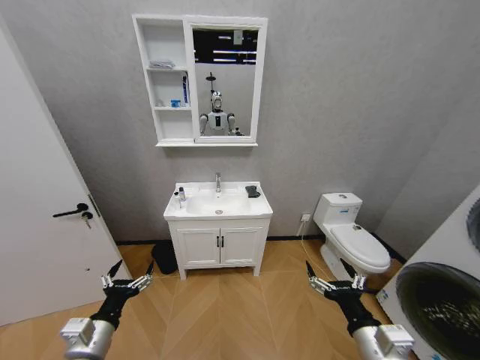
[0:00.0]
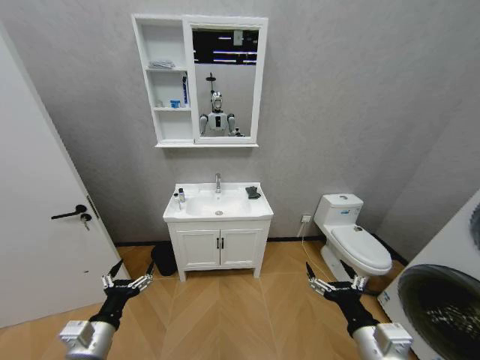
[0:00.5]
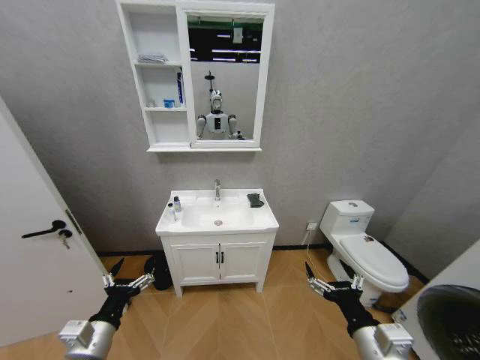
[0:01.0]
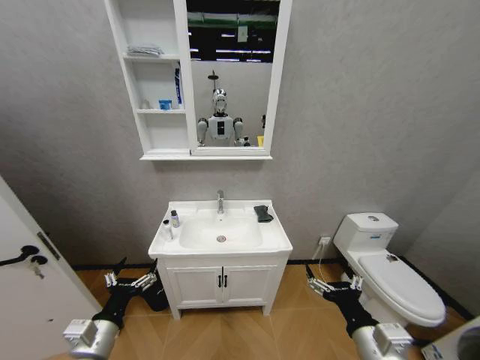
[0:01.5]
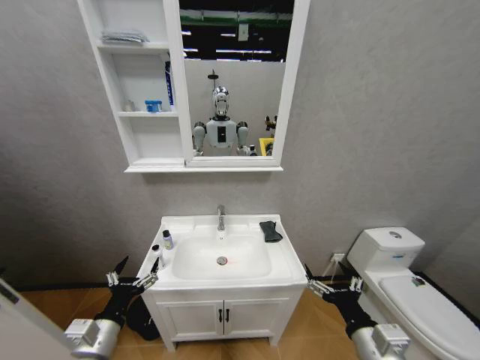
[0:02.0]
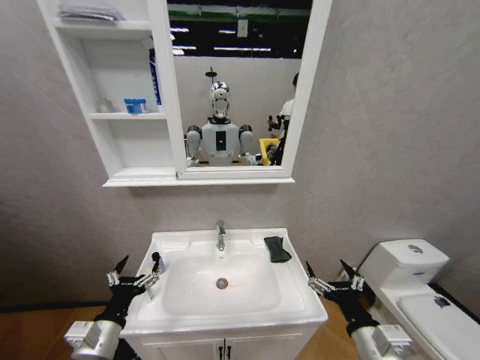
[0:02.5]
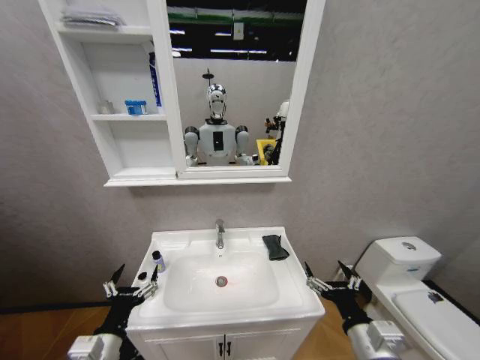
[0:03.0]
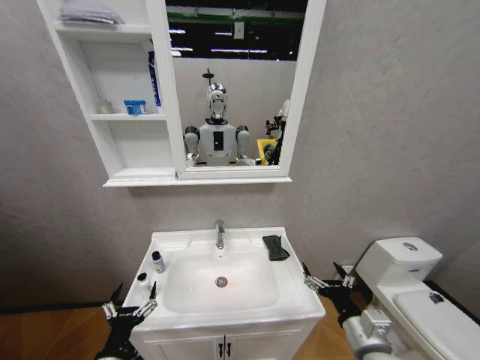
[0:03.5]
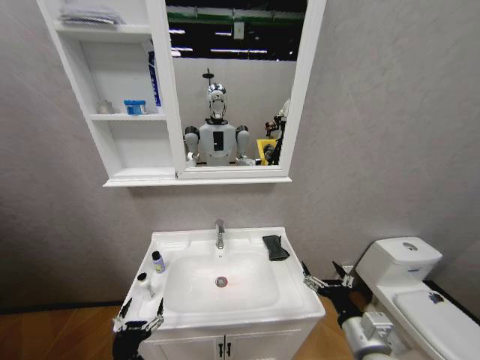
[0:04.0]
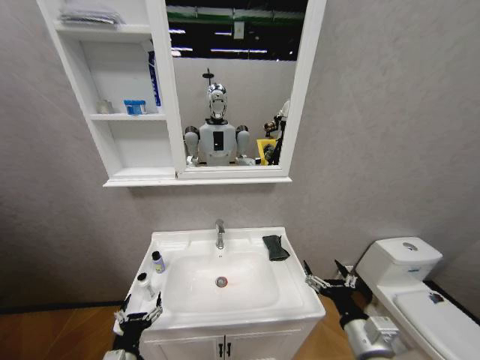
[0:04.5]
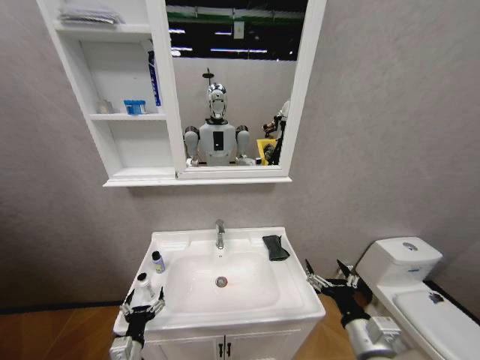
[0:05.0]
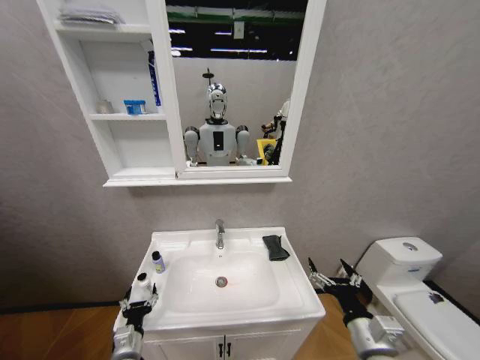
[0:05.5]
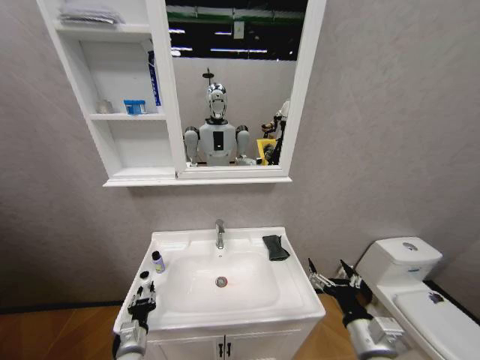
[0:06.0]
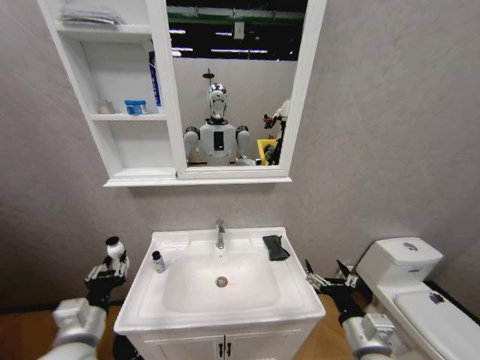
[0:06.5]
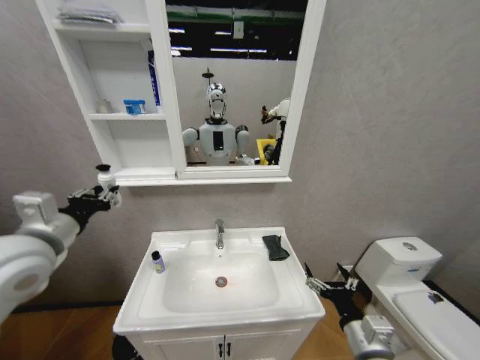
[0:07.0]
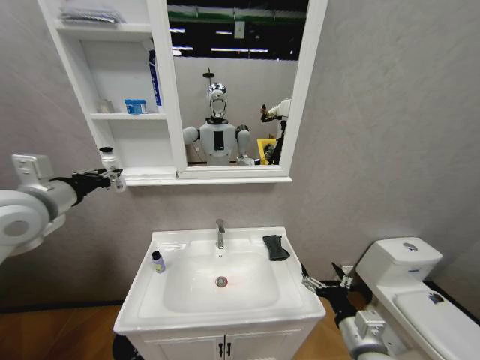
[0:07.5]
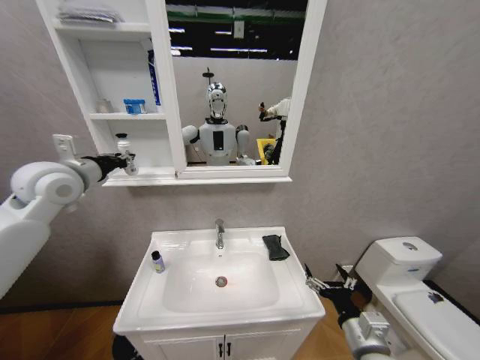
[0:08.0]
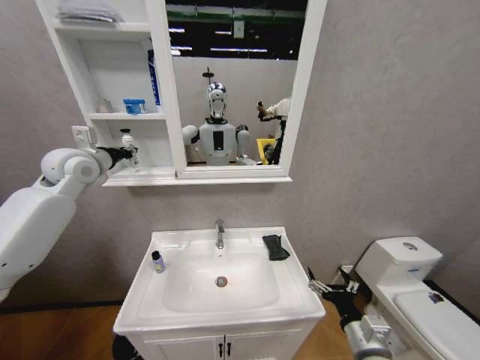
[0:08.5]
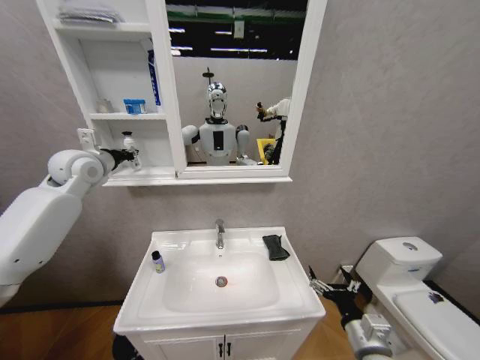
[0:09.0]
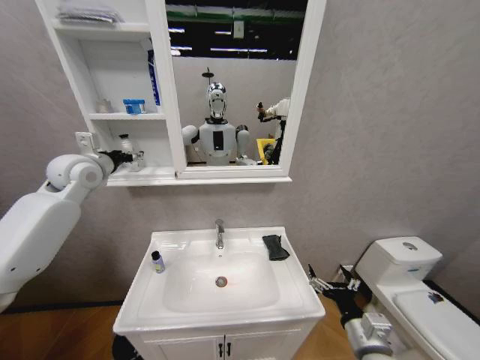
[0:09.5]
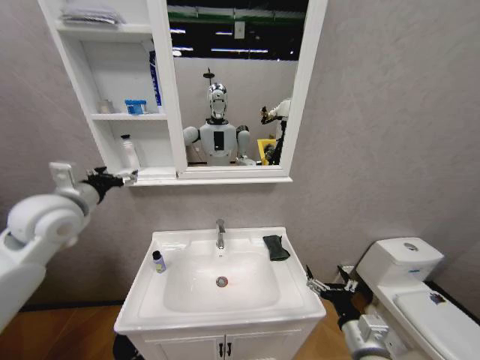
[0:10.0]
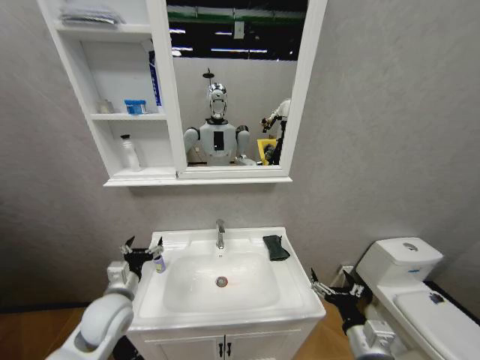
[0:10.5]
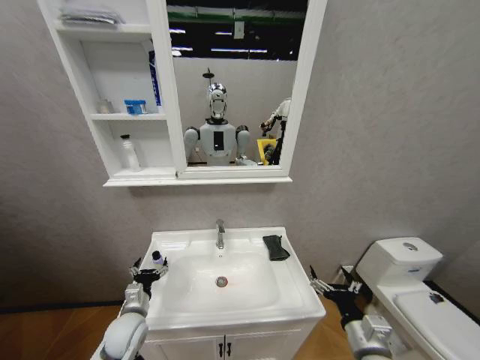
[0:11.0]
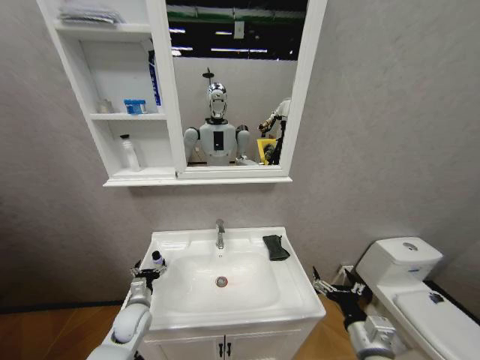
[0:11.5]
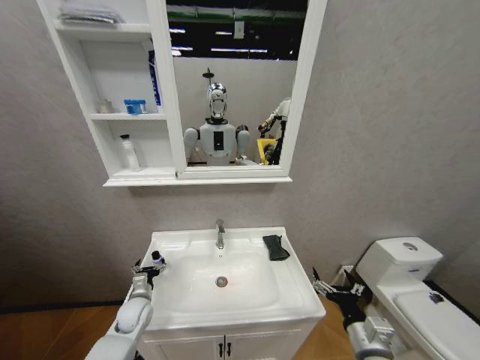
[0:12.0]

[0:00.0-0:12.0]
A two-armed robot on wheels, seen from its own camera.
Task of the whole recording: Move facial cleanser and shampoo from washbasin to cabinet, then wipe washbasin with towel.
0:02.0 to 0:04.0: The left gripper moves downward and backward, about 10 cm.
0:04.0 to 0:06.0: The left gripper is displaced forward and downward by roughly 15 cm, and closes.
0:06.0 to 0:08.0: The left gripper travels upward by approximately 50 cm.
0:08.0 to 0:10.0: The left gripper moves some 10 cm forward and comes back, and opens.
0:10.0 to 0:12.0: The left gripper shifts approximately 40 cm downward.

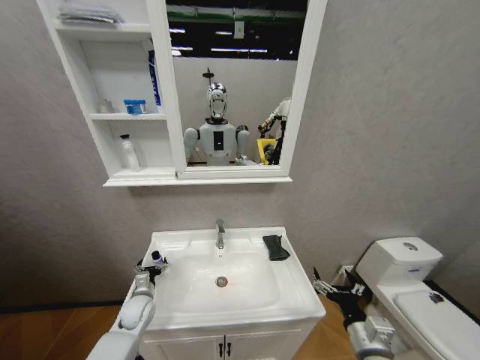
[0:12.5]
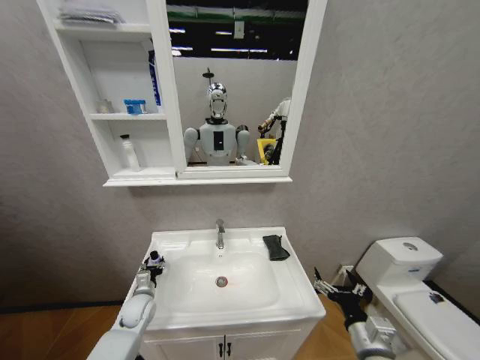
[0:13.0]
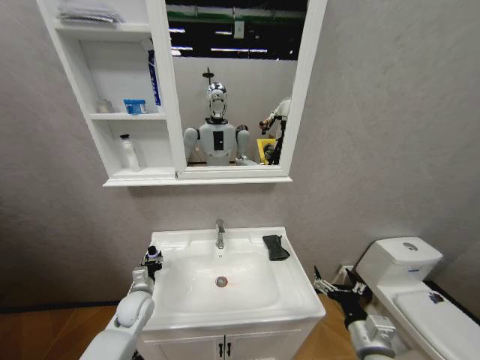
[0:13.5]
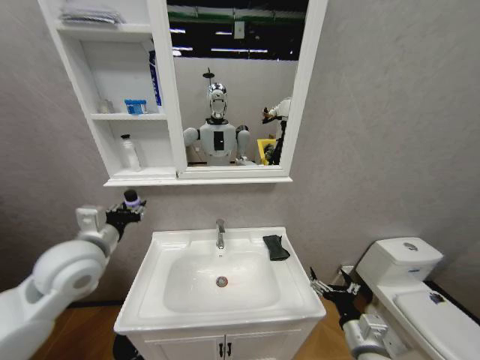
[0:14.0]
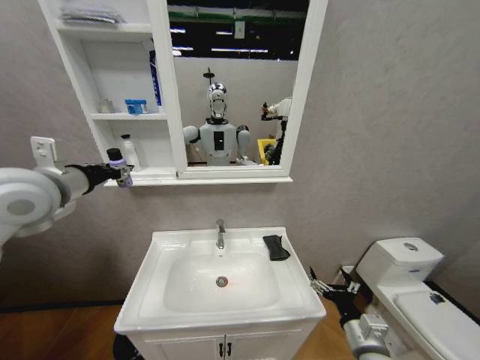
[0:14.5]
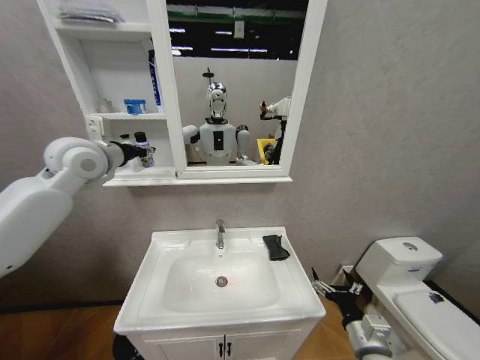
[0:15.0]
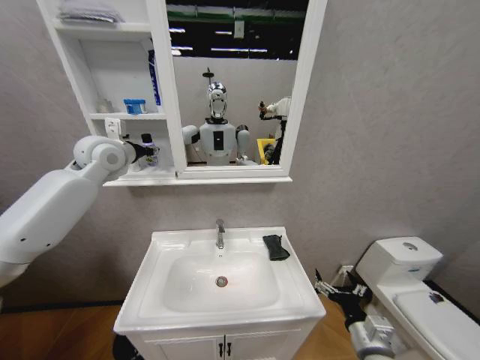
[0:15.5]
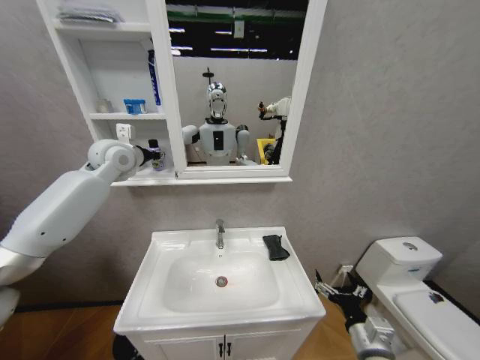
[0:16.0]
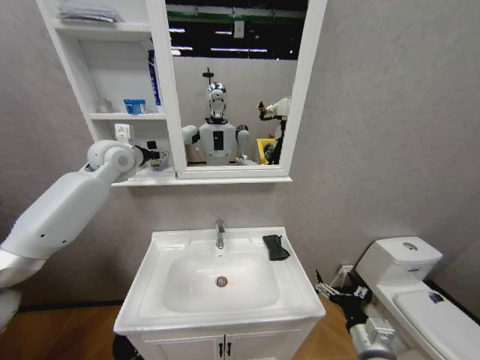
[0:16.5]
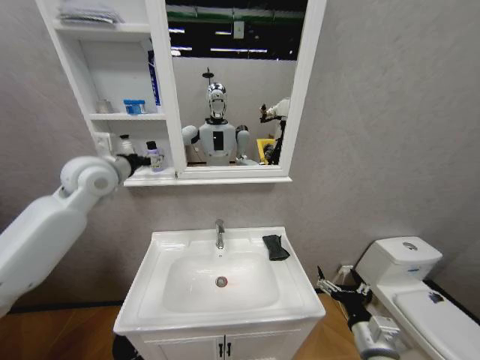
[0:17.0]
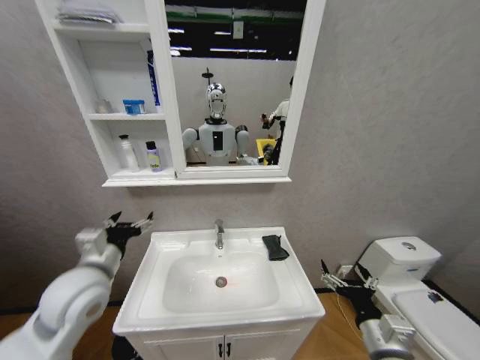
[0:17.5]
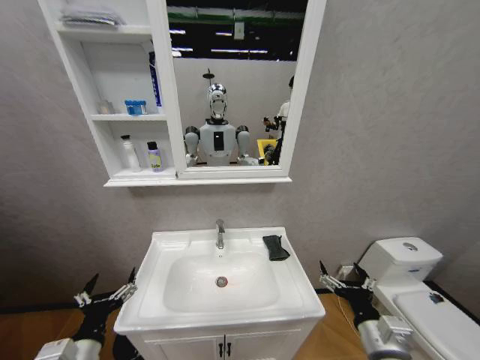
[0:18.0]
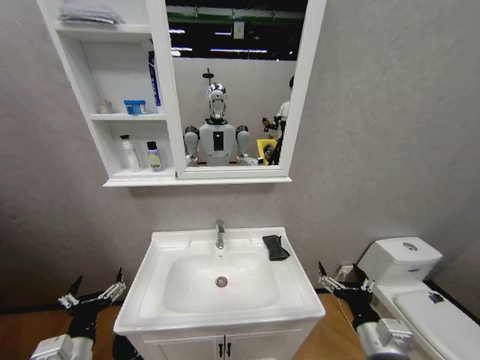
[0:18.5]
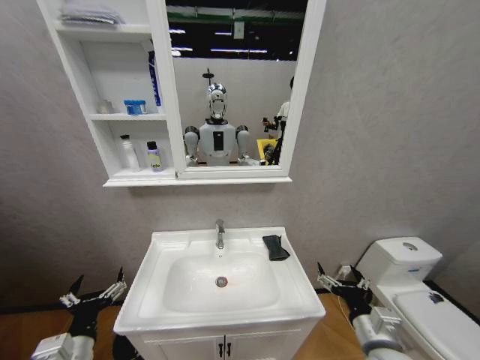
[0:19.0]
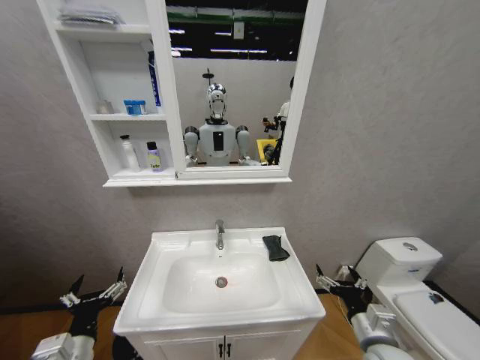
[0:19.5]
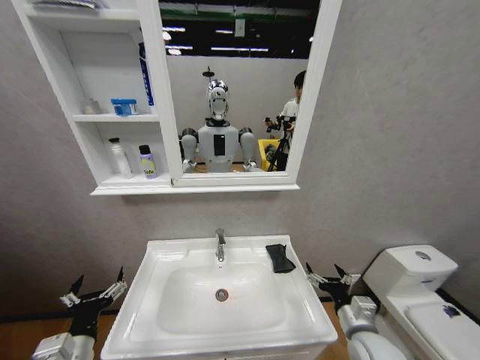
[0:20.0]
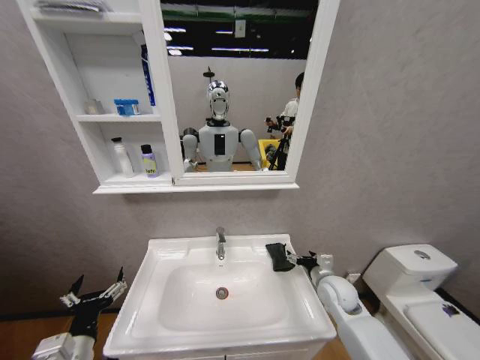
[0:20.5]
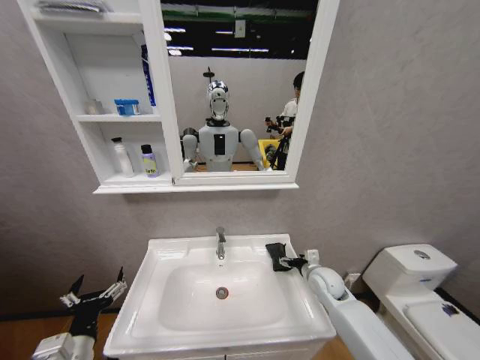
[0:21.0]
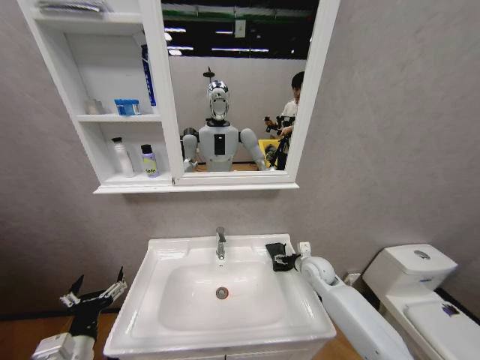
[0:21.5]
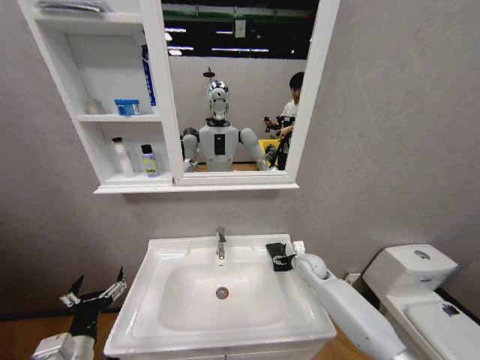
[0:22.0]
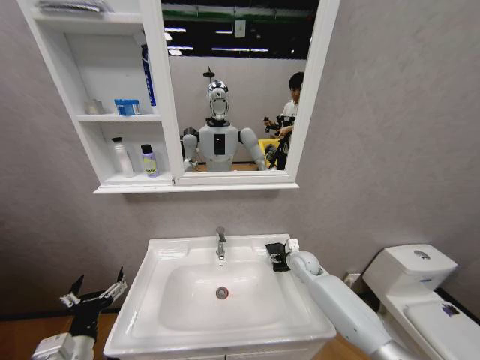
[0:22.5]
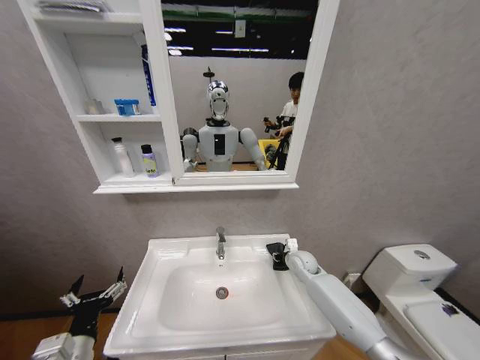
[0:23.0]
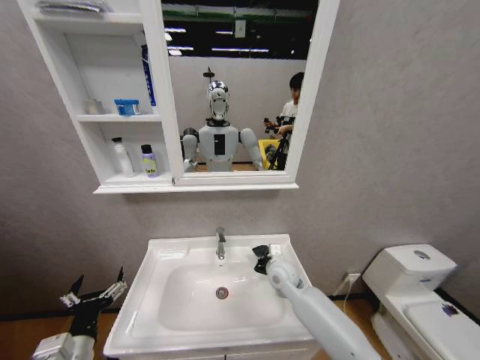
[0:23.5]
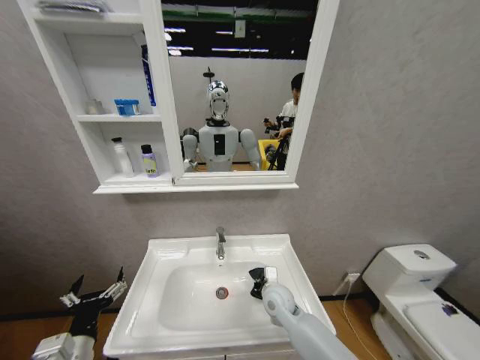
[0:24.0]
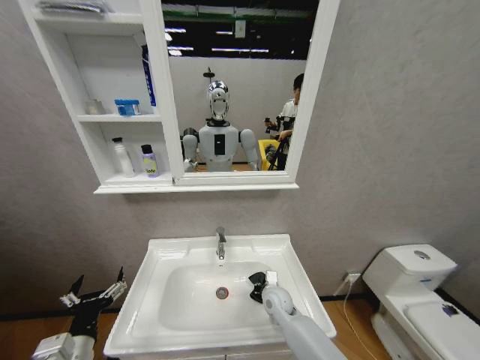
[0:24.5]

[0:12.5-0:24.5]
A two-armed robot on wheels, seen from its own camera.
Task of the whole recording: Move facial cleanser and shampoo from washbasin to cabinet, then wipe washbasin with towel.
0:12.5 to 0:14.5: The left gripper shifts approximately 50 cm upward, and closes its fingers.
0:14.5 to 0:16.5: The left gripper goes roughly 20 cm forward, and opens up.
0:16.5 to 0:18.5: The left gripper moves backward and downward, roughly 50 cm.
0:18.5 to 0:20.5: The right gripper travels forward by some 20 cm.
0:20.5 to 0:22.5: The right gripper shifts some 10 cm forward.
0:22.5 to 0:24.5: The right gripper moves to the left, backward and downward, some 15 cm, and closes.

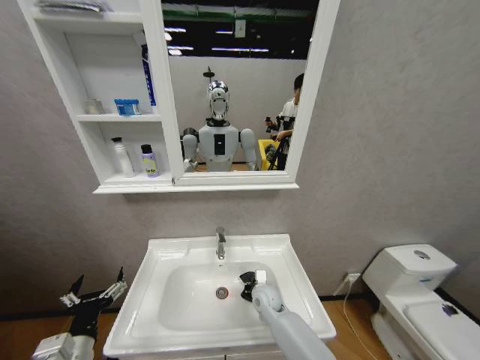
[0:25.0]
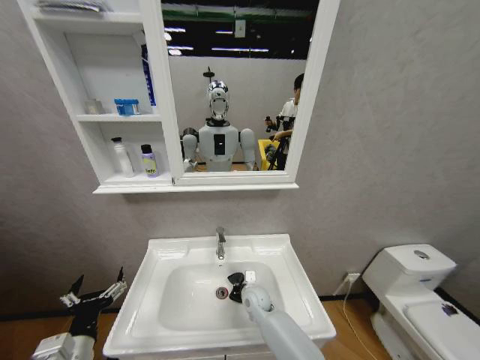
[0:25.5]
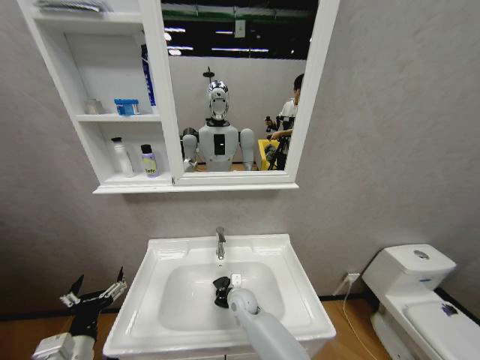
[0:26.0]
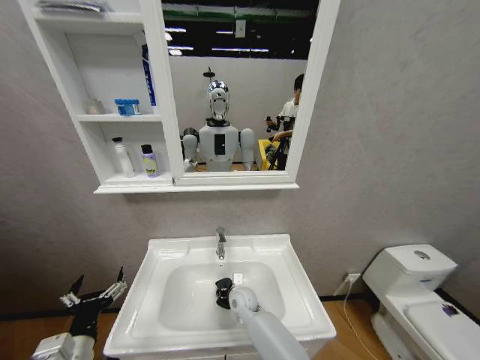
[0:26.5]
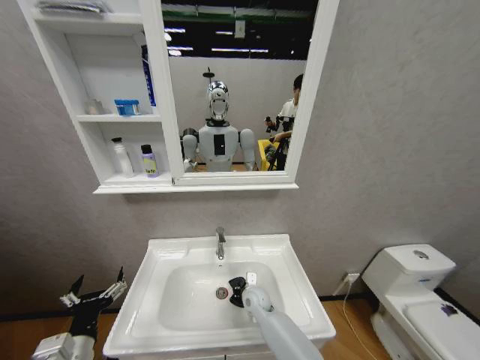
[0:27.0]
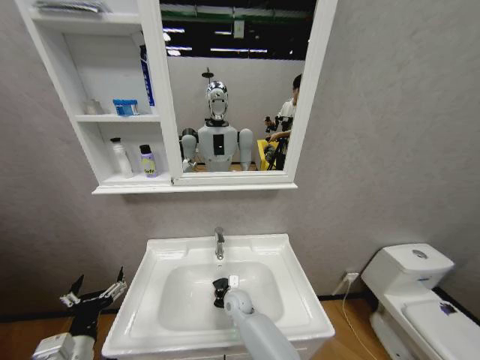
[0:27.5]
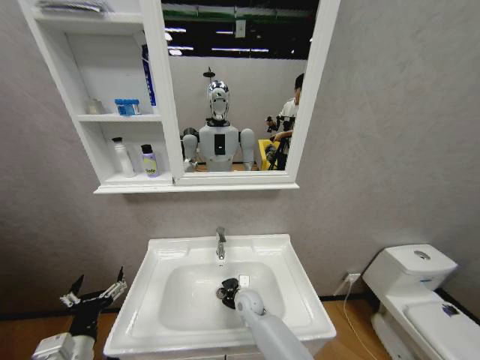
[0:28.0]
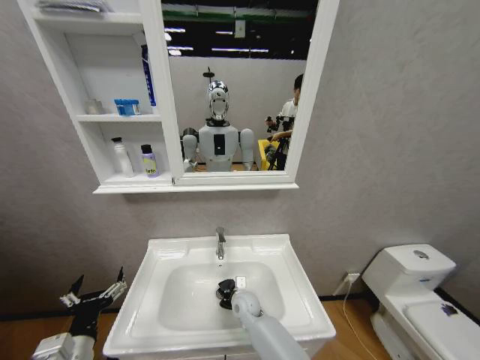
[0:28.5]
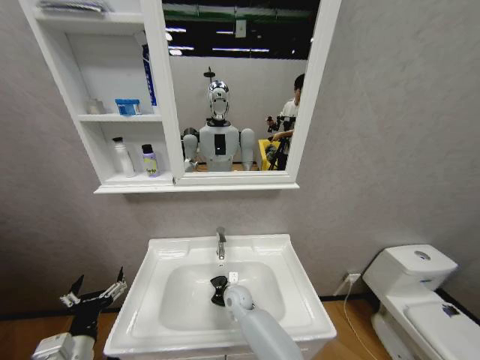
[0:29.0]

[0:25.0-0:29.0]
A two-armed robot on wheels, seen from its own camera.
Task of the whole recording: Move facial cleanser and shampoo from washbasin to cabinet, then wipe washbasin with towel.
0:27.0 to 0:29.0: The right gripper heads to the left, covering some 5 cm.
